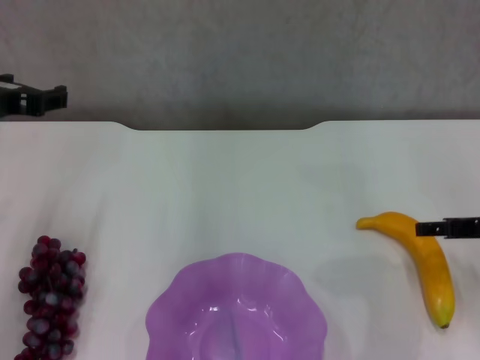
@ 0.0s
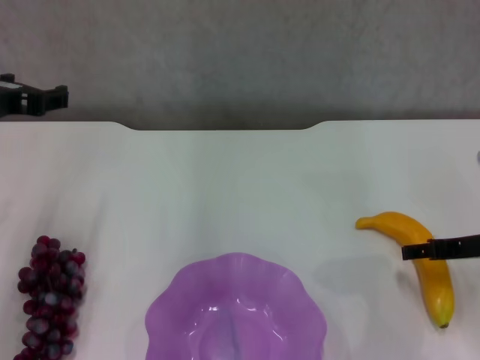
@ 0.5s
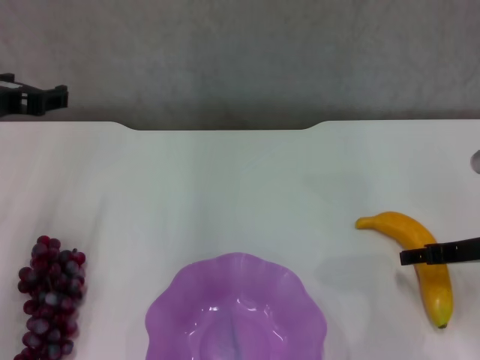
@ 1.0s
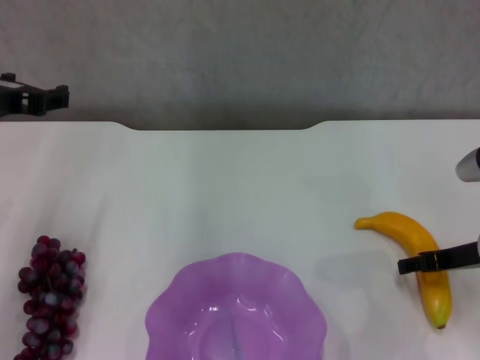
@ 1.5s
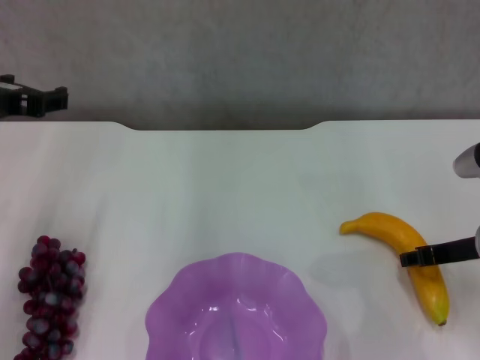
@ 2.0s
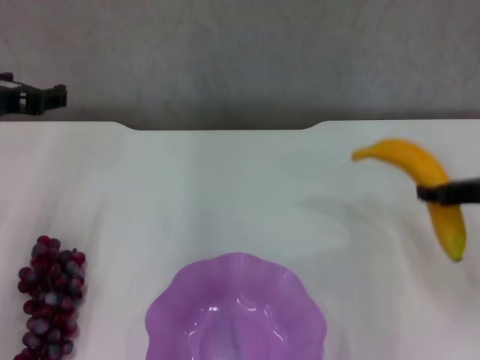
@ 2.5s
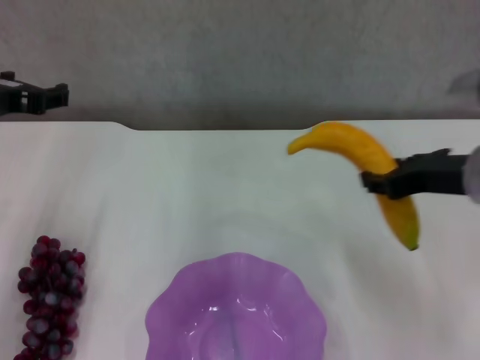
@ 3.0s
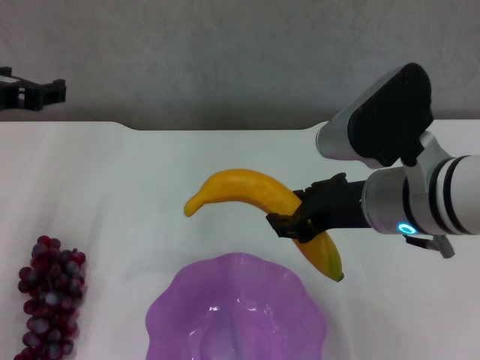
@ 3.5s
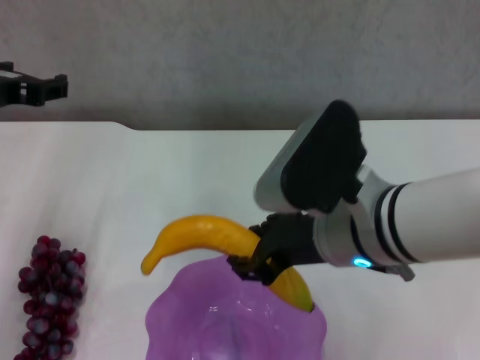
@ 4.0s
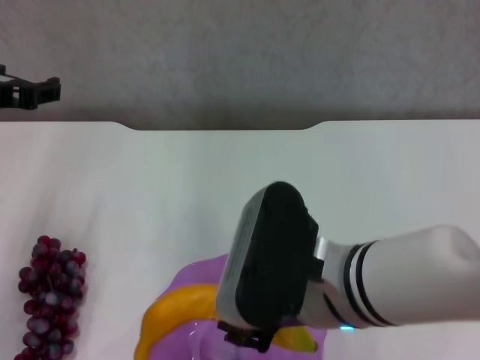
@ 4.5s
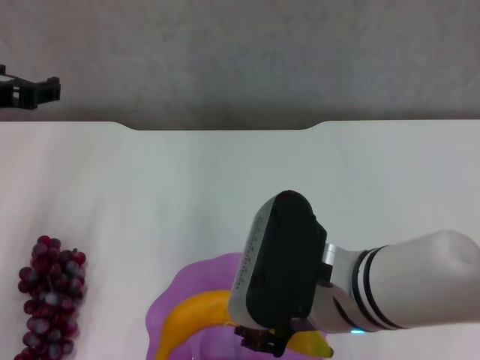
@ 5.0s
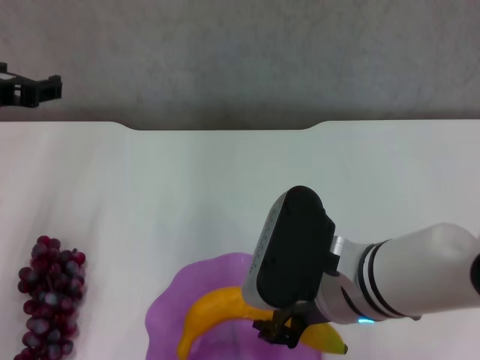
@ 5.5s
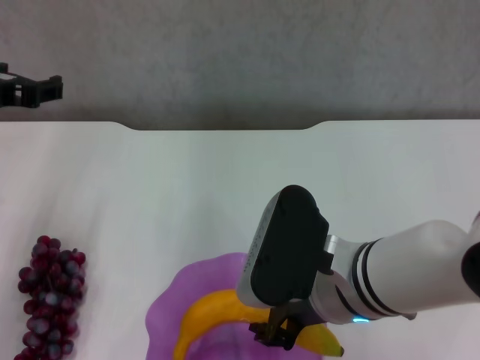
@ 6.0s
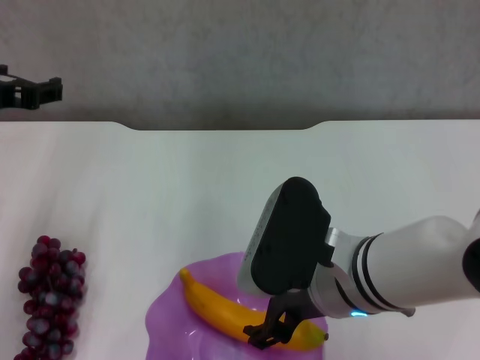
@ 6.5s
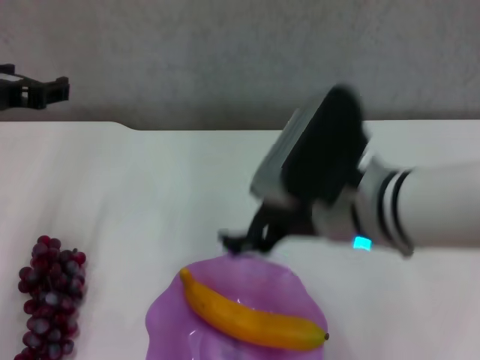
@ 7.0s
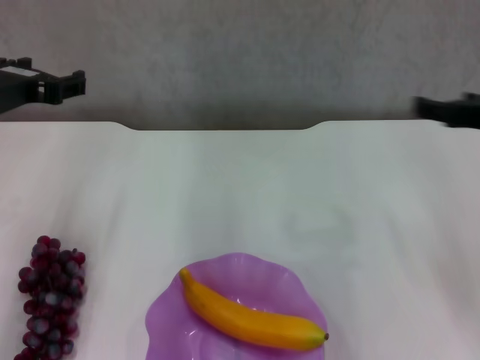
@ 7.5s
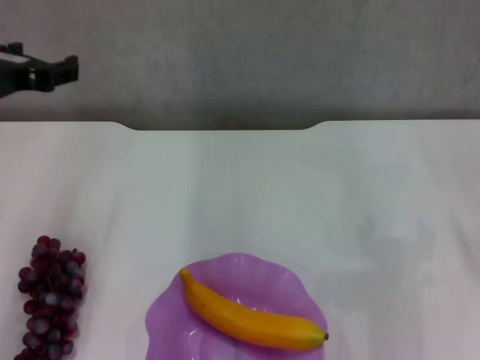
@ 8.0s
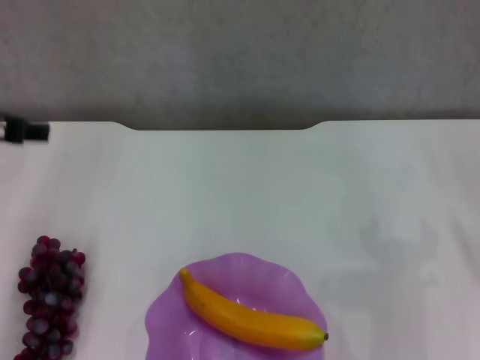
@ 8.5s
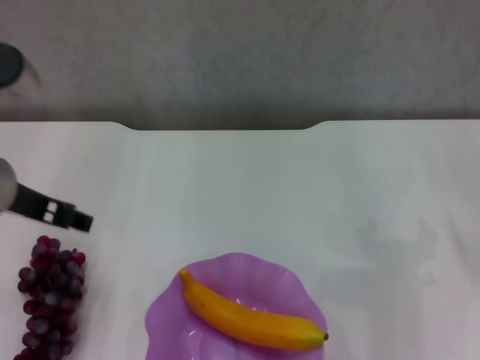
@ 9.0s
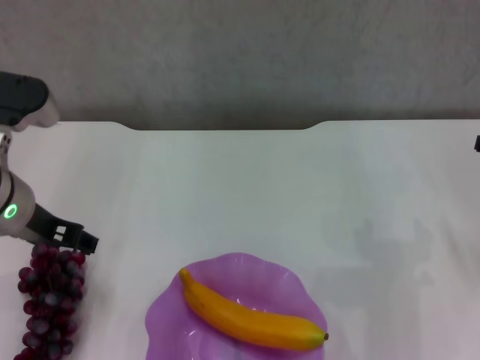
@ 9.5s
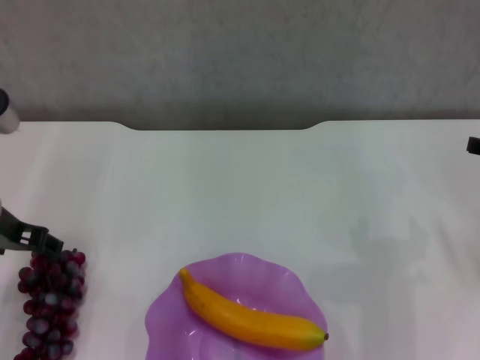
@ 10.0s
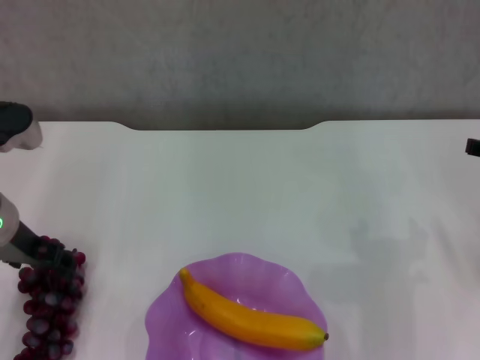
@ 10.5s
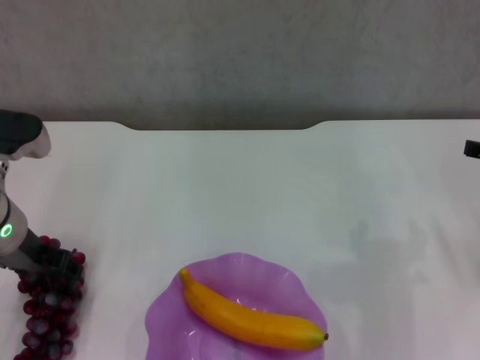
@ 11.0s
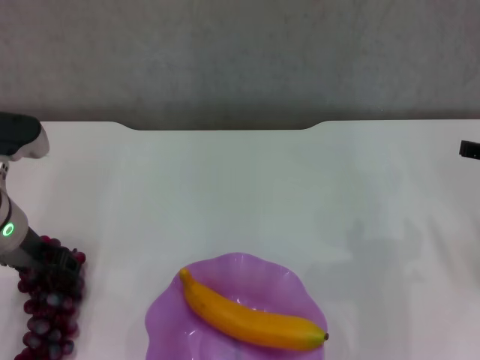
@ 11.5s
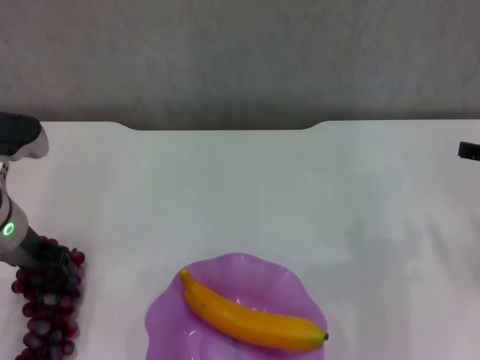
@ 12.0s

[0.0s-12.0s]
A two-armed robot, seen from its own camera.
Step, 0.0s to 2.0s: Grasp the banana with right gripper.
Step, 2.5s to 6.5s: Place the banana in the purple plate with right gripper.
0.0s to 2.0s: The right gripper closes up.
2.0s to 4.0s: The right gripper shifts approximately 20 cm to the left and upward.
6.0s to 8.0s: The right gripper travels to the right by about 25 cm, and opens up.
8.0s to 10.0s: The left gripper moves downward, some 5 cm.
10.0s to 12.0s: The grippers move only a little.

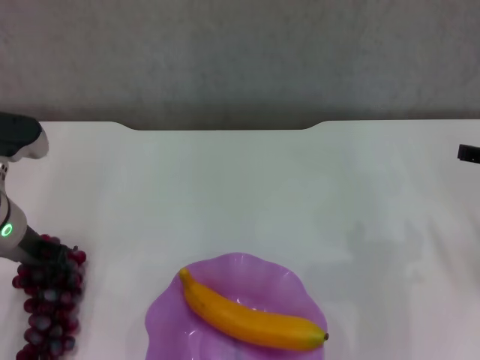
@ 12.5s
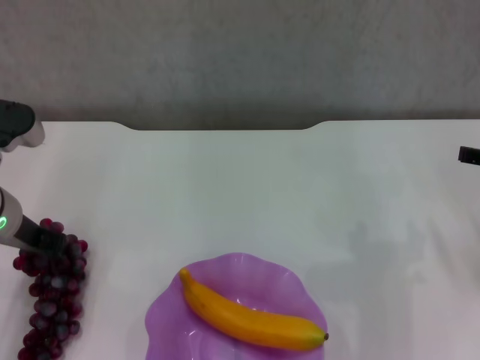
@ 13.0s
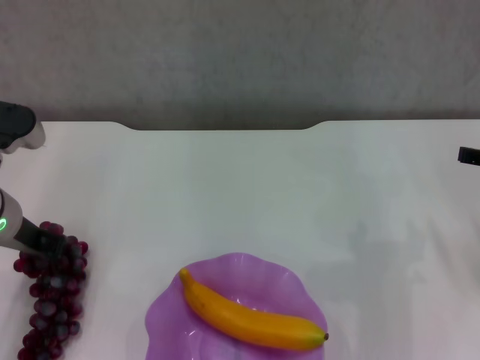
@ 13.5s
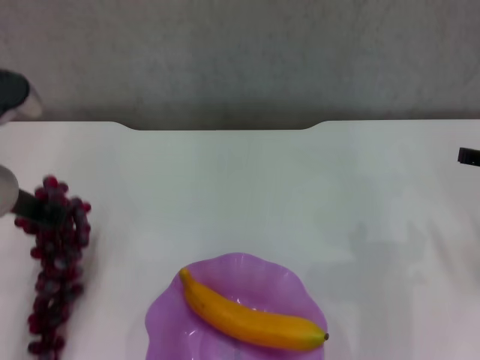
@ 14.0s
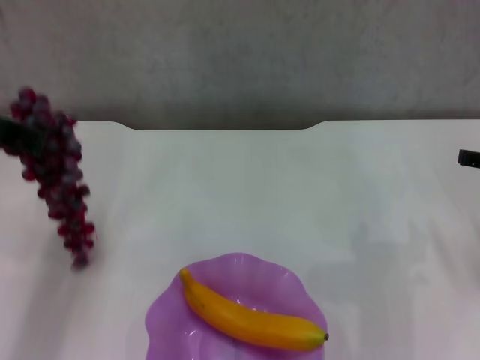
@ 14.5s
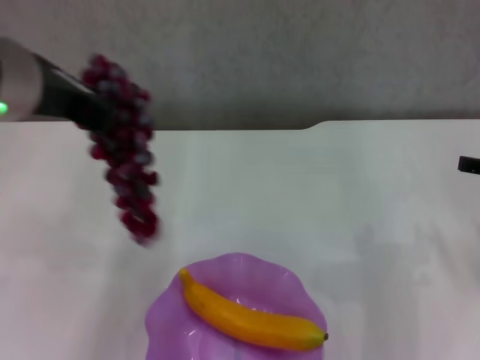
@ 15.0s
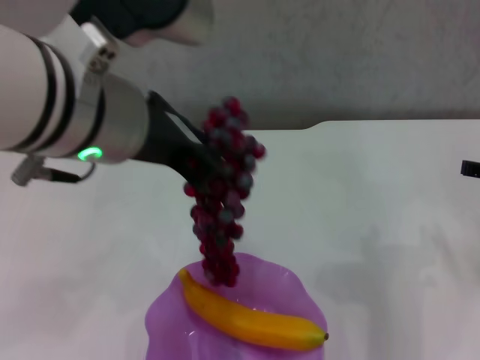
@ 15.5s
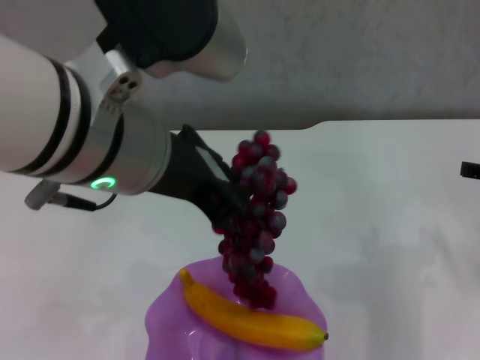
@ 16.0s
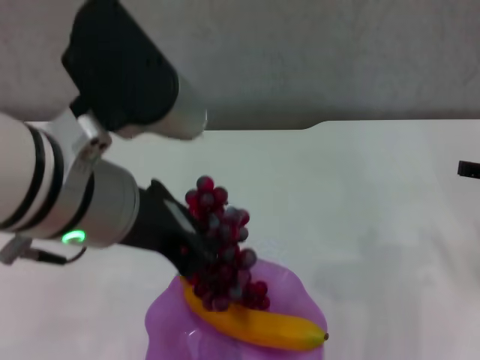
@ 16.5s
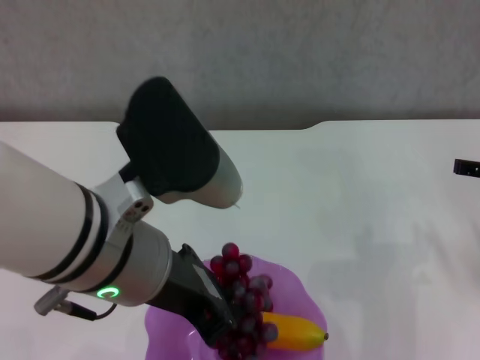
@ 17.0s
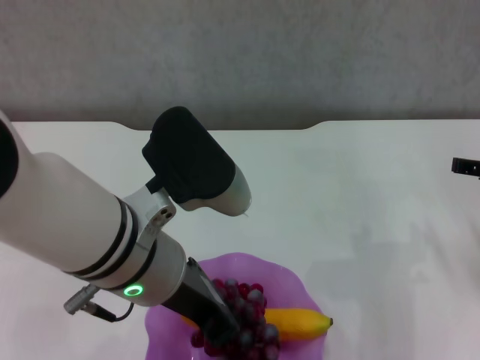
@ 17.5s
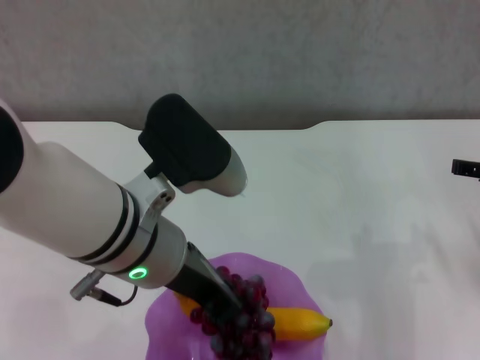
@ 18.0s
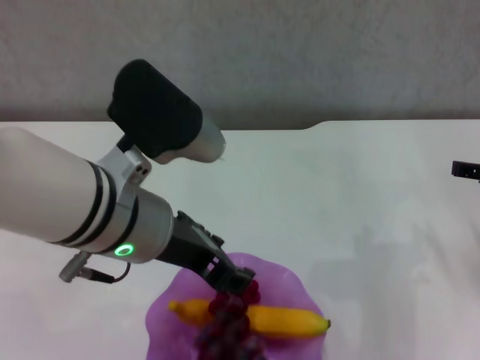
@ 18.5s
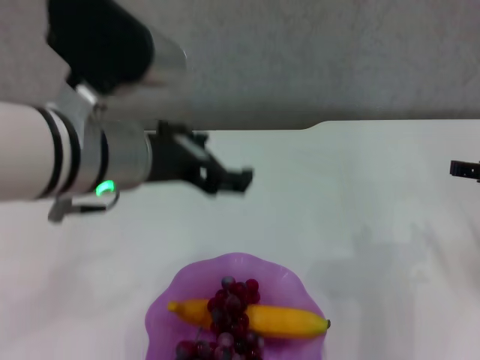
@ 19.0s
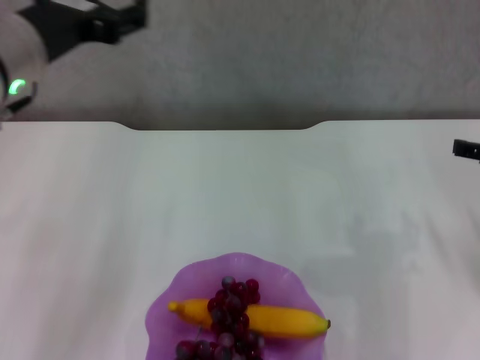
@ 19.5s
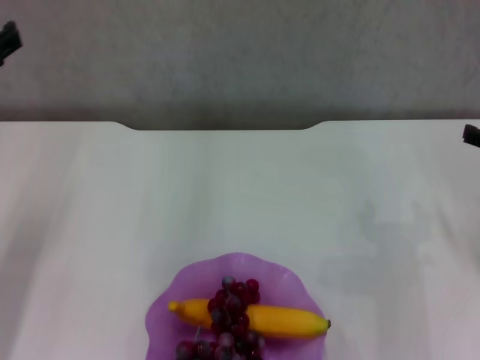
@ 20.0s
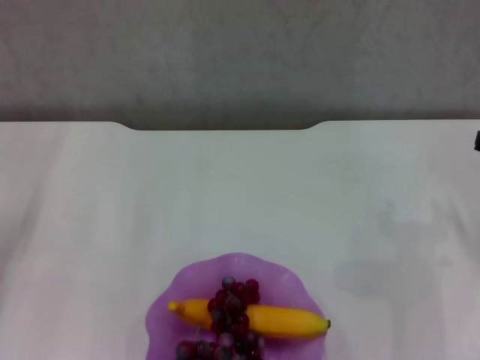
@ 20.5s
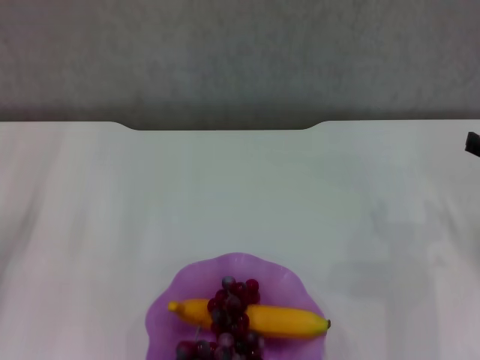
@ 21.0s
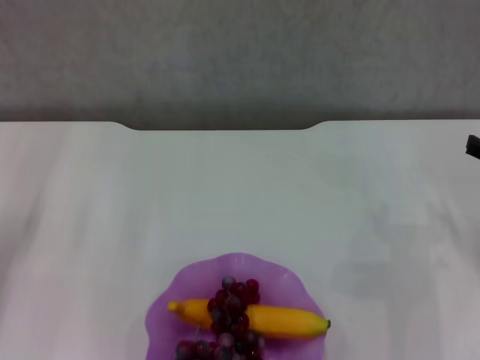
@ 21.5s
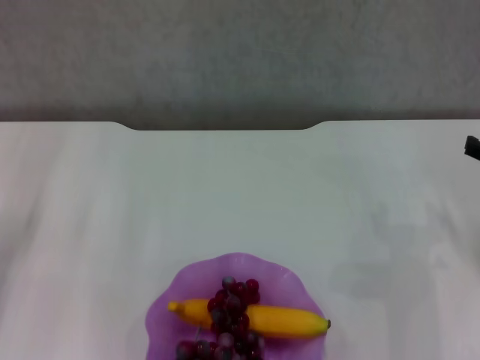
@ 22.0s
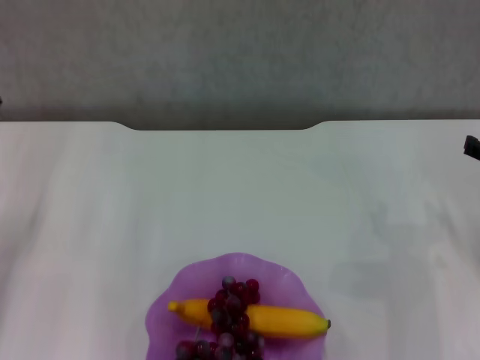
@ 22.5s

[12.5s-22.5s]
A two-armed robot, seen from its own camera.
Step, 12.5s to 18.5s: Place the grape in the purple plate with left gripper.
12.5s to 14.5s: The left gripper goes about 15 cm upward.
14.5s to 16.5s: The left gripper goes about 15 cm to the right and backward.
16.5s to 18.5s: The left gripper is displaced downward by about 5 cm, and opens its fingers.
18.5s to 20.5s: The left gripper moves to the left, approximately 20 cm, and opens.
20.5s to 22.5s: Neither gripper changes place.

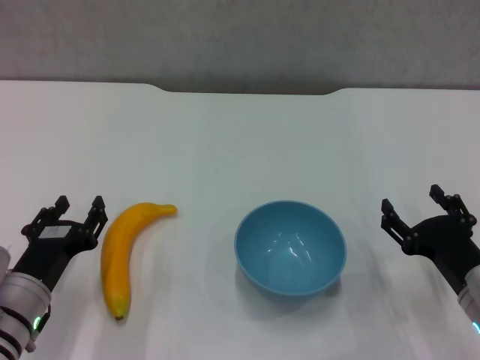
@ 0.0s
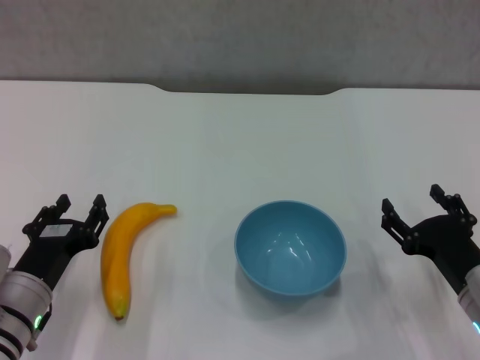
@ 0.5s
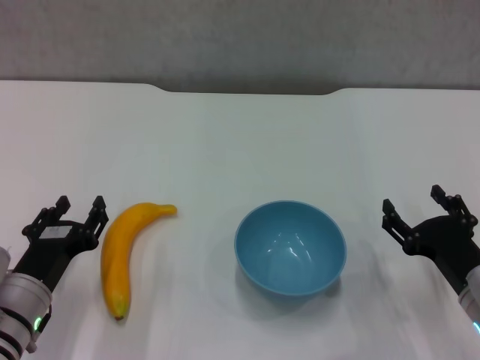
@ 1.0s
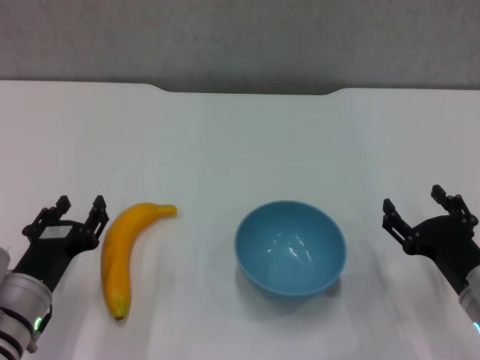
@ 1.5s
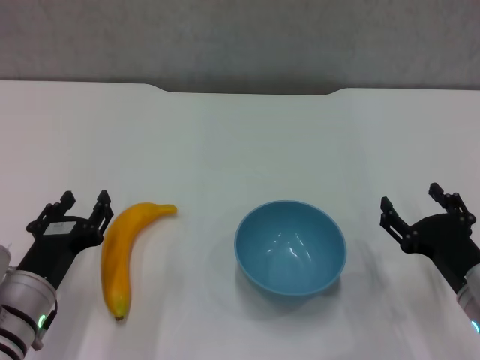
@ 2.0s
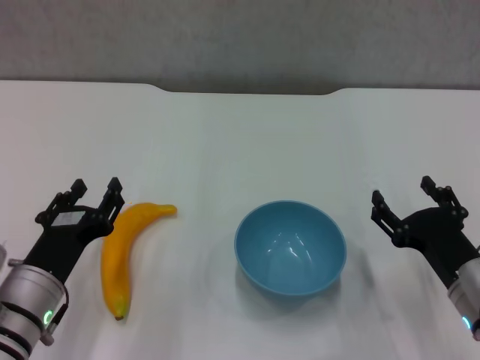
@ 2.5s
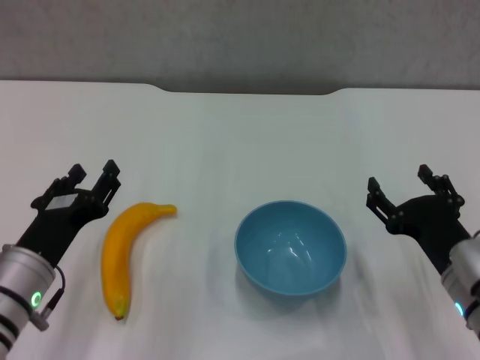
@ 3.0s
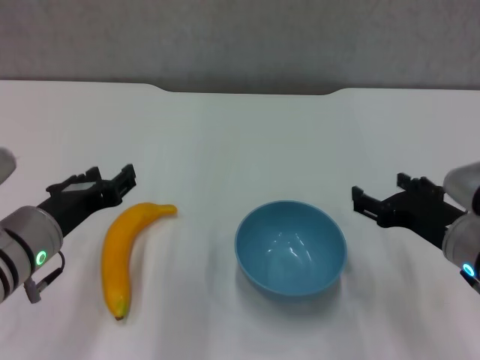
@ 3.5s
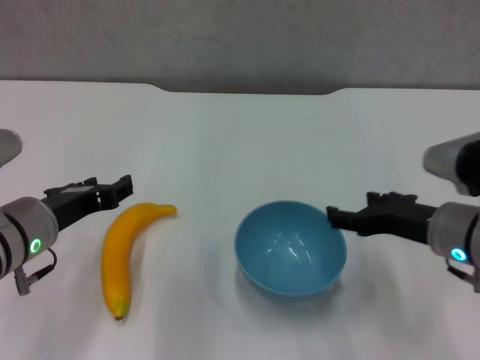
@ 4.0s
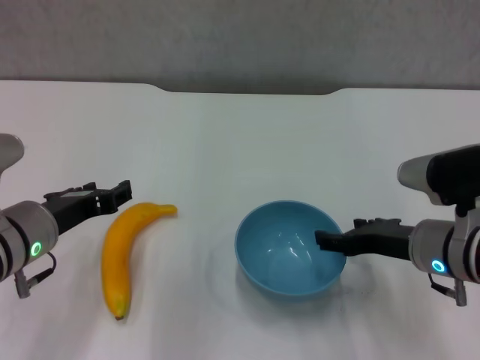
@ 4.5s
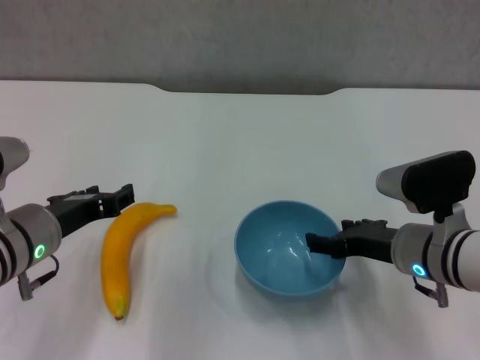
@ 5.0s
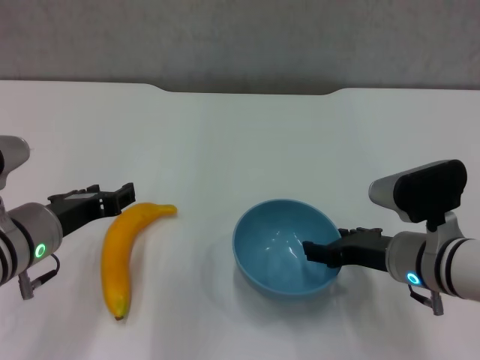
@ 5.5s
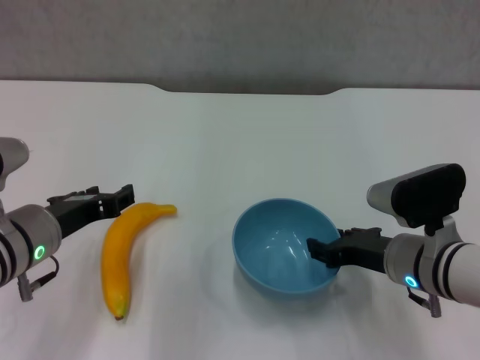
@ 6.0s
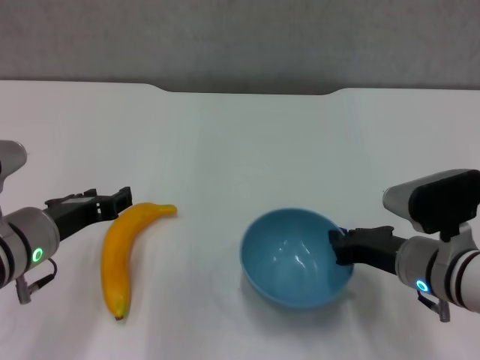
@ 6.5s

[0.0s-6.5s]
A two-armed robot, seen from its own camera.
Step, 0.0s to 6.0s: Grasp the blue bowl with right gripper.
0.0s to 2.0s: Both grippers stay put.
2.0s to 4.5s: The left gripper goes some 10 cm upward. Meanwhile the right gripper shifts some 10 cm upward and forward.
4.5s to 6.5s: The right gripper closes up.
